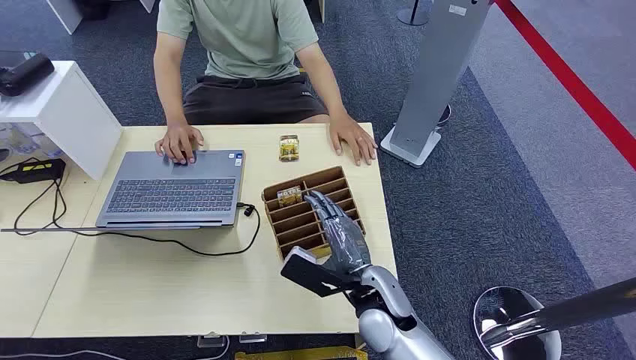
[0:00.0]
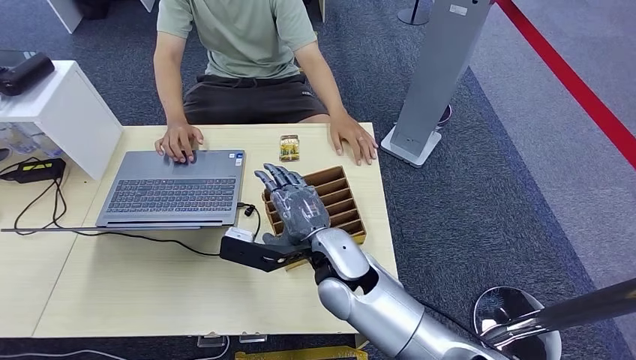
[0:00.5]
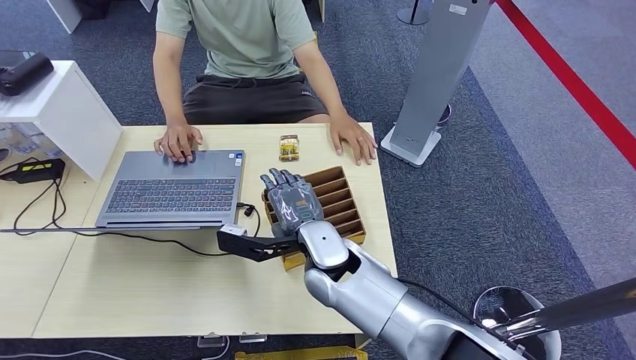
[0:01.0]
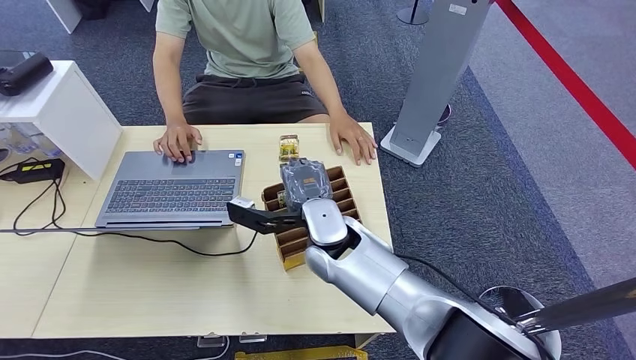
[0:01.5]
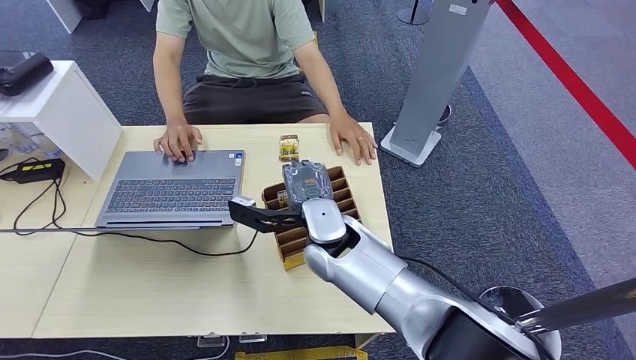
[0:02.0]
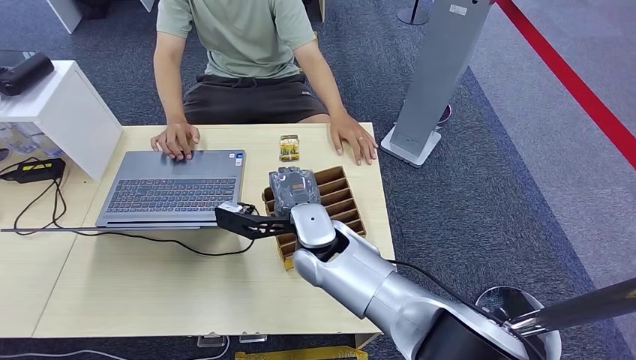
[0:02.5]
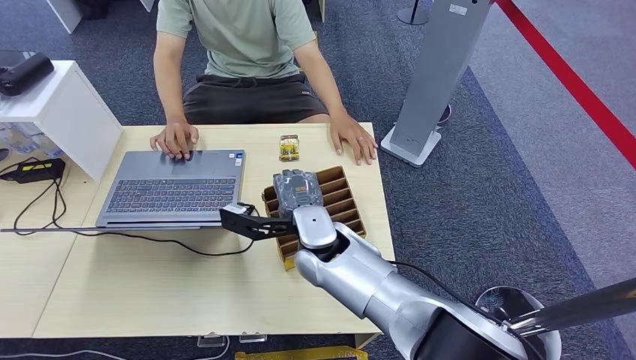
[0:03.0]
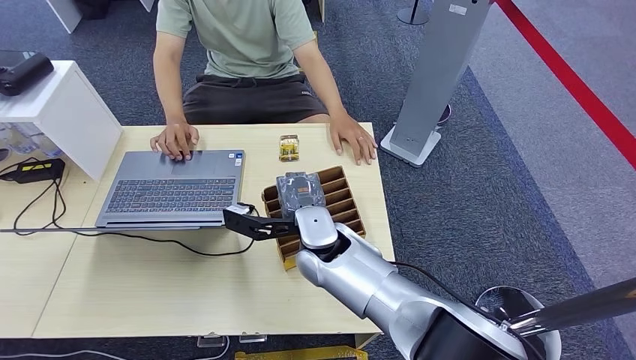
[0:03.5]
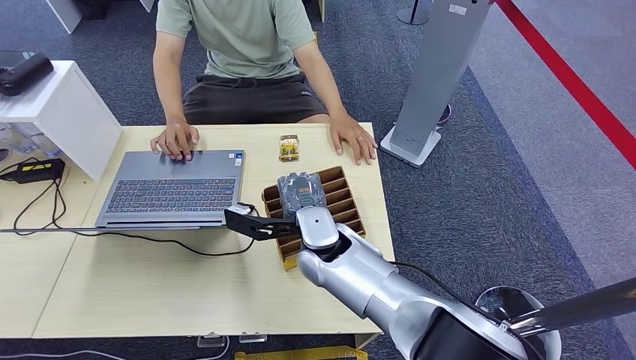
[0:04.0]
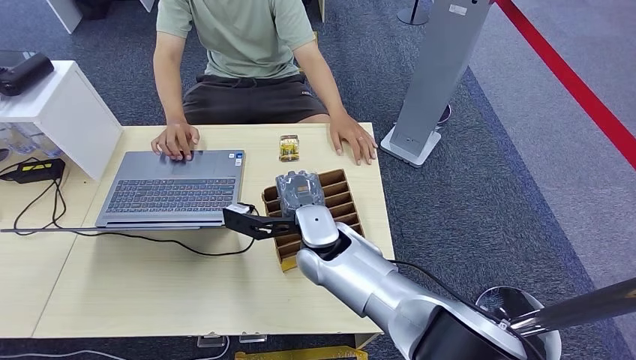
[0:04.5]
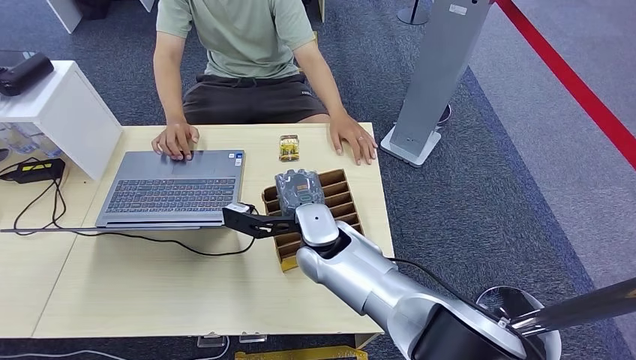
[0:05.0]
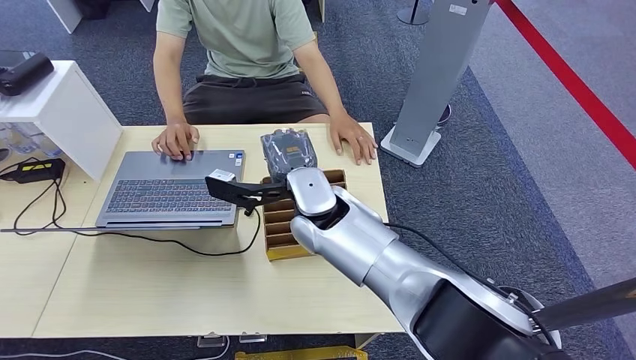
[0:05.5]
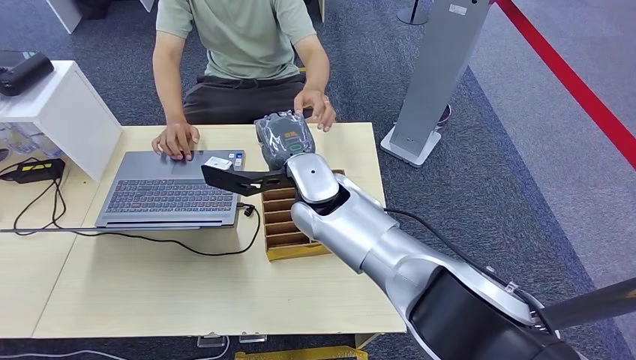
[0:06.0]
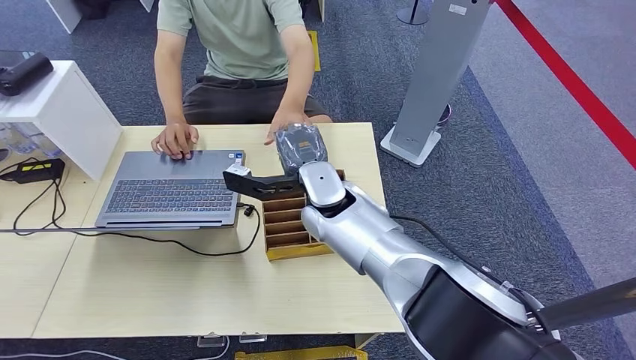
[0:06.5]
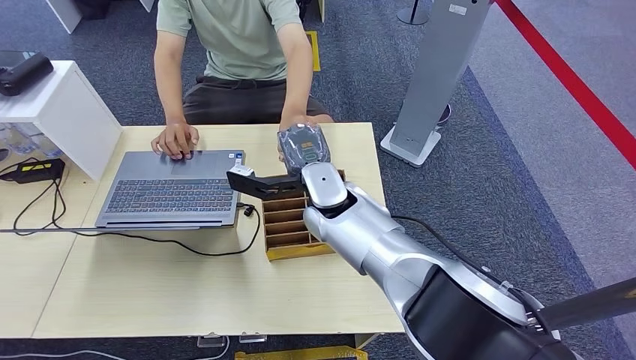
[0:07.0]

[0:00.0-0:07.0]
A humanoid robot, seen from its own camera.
Step, 0:00.0 to 0:05.5: Pick up the key card from the card box.
Step, 0:06.0 to 0:07.0: Hand the key card to the target.
0:02.0 to 0:03.5: The hands stay close to where they were, moving slightly.
0:03.5 to 0:05.0: Both hands stay put.
0:05.0 to 0:07.0: The right hand shifts by about 5 cm.
